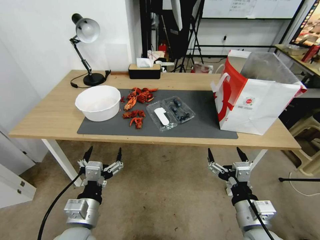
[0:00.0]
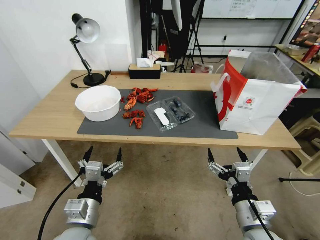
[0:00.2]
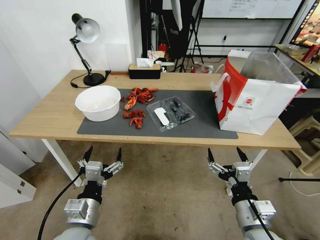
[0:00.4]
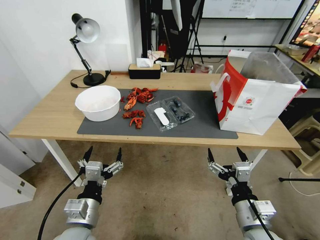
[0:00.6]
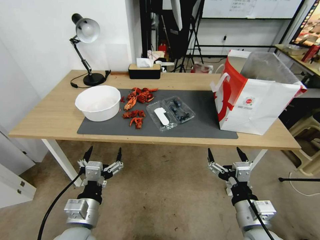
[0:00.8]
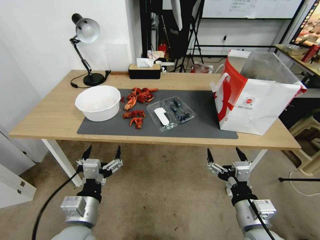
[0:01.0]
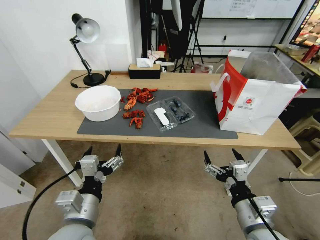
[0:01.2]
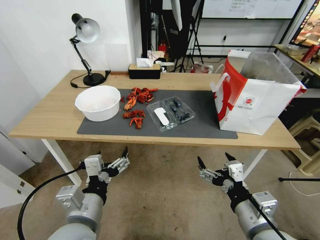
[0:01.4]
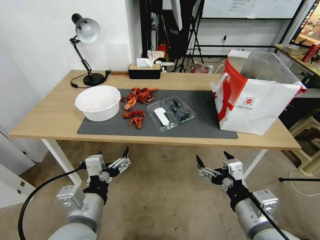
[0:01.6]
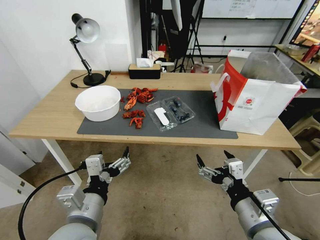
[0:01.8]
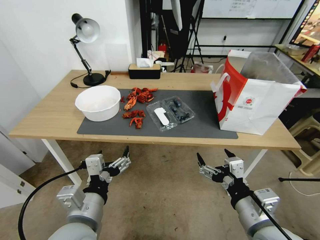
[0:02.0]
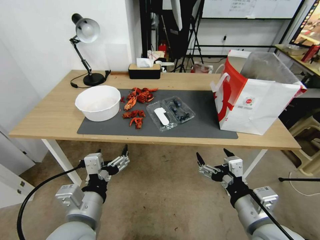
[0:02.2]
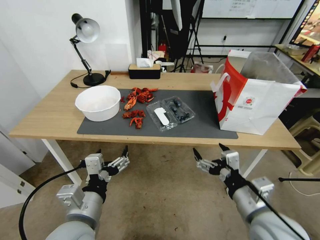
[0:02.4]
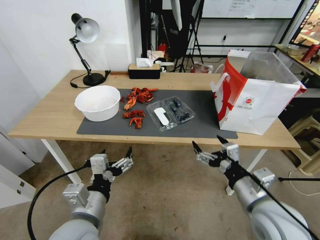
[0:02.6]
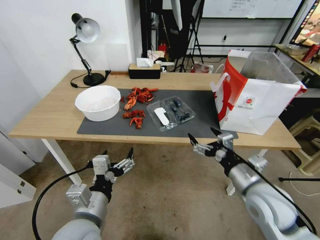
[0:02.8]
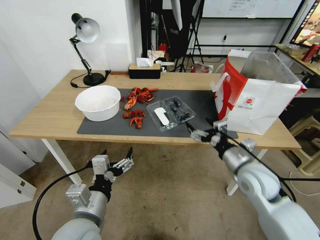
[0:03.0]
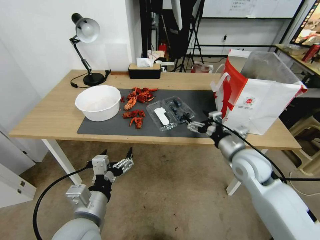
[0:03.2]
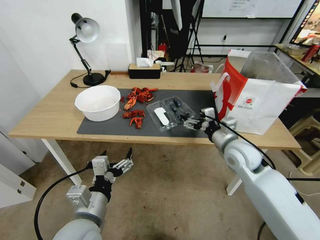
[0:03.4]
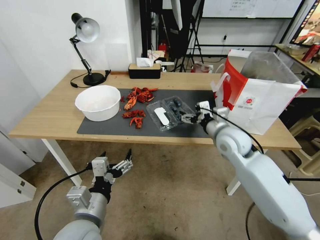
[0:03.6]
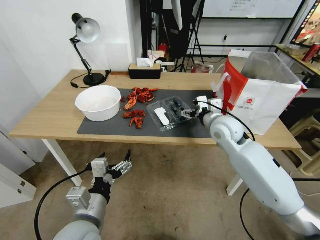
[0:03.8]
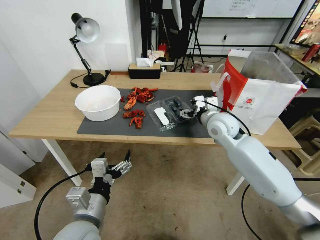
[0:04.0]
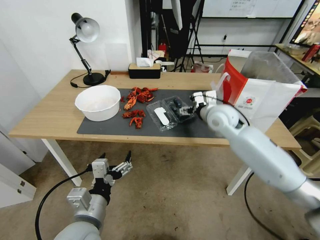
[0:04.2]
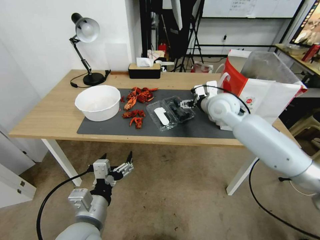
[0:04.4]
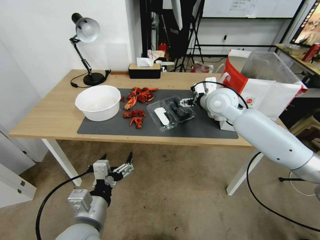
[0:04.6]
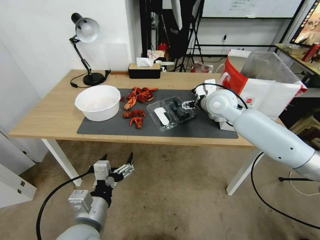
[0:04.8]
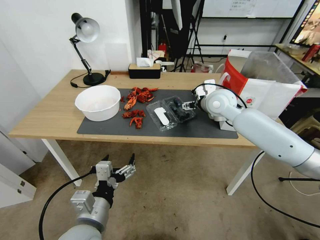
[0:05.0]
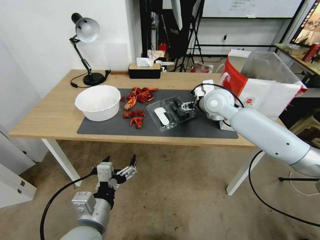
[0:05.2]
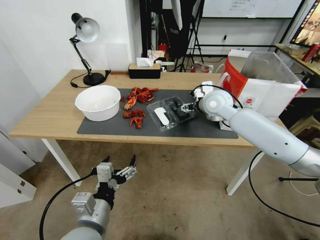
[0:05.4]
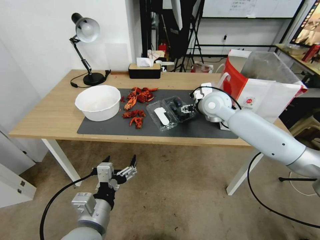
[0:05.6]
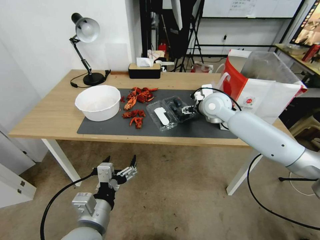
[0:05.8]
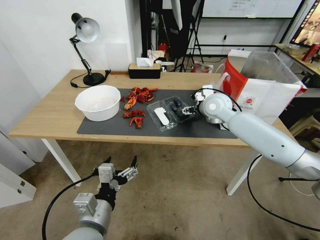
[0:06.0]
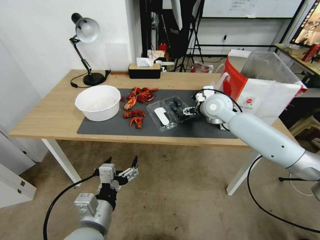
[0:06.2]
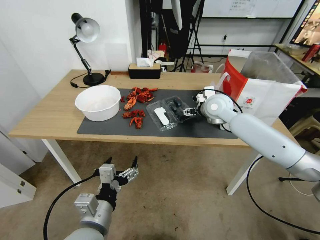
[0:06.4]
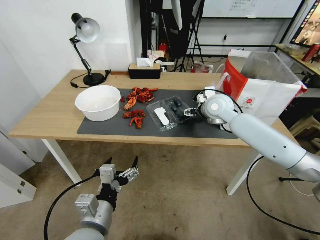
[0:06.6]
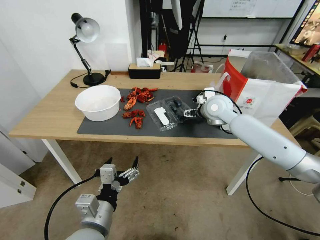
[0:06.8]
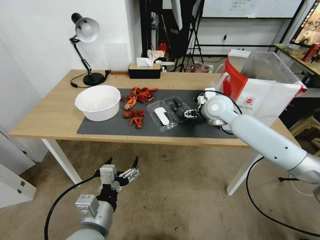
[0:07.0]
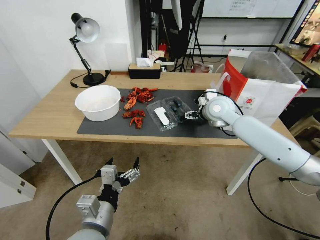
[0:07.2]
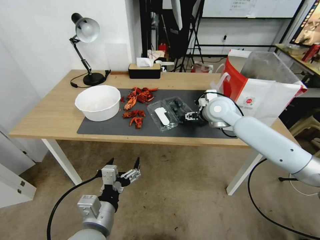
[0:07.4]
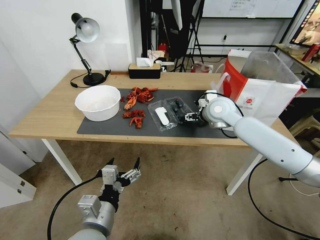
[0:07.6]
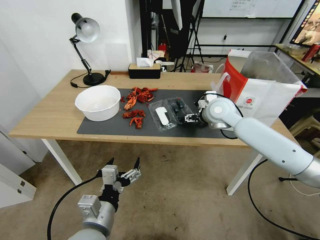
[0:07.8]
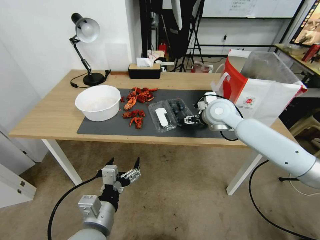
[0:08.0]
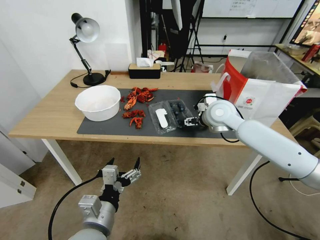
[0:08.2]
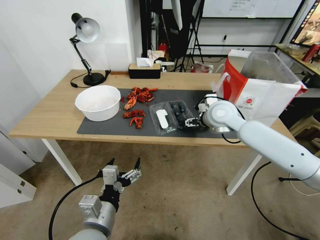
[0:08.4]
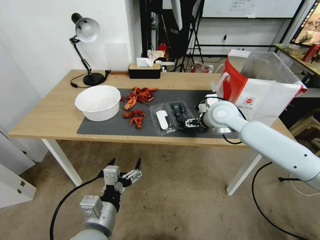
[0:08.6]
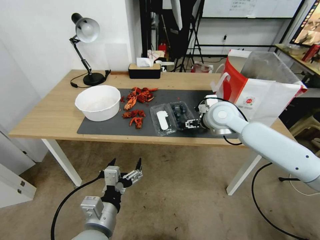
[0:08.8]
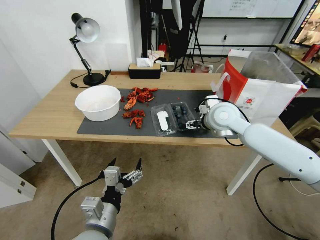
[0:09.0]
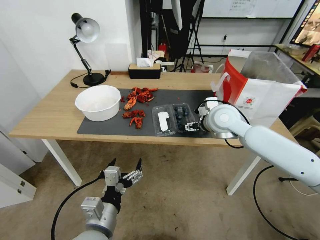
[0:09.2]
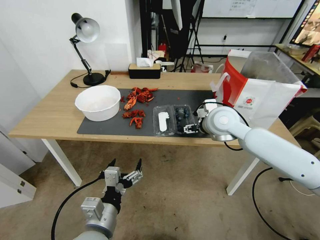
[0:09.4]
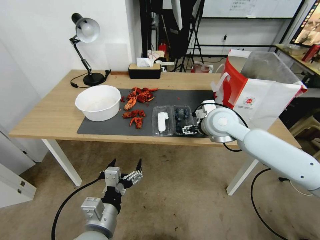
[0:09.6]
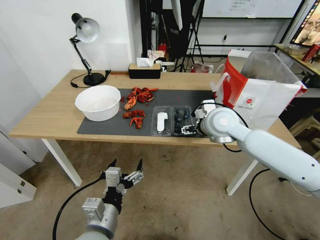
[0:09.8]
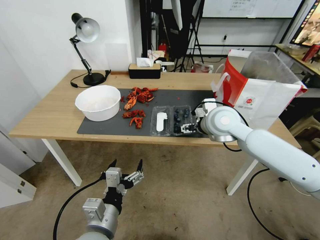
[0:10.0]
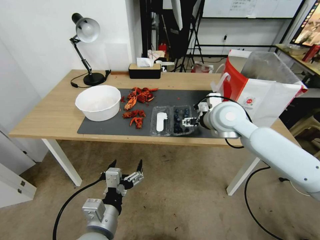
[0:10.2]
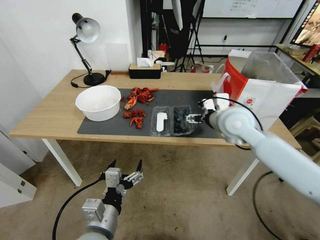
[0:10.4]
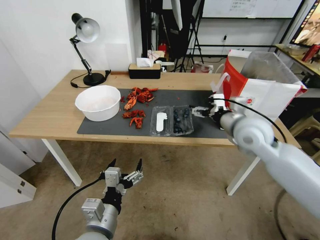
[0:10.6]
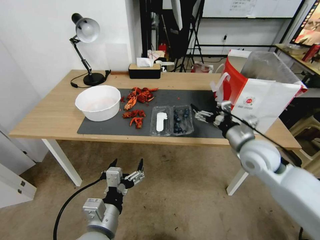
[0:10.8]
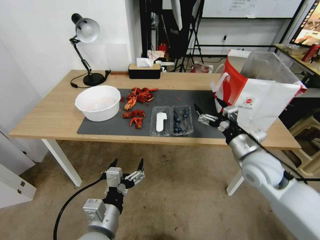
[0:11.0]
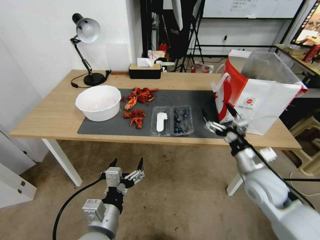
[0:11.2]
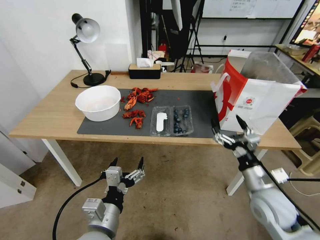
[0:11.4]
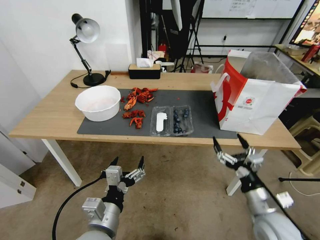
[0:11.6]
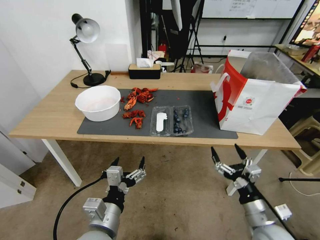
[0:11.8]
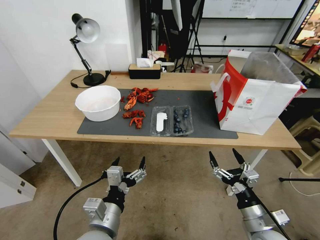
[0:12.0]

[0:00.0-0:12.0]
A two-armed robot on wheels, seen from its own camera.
Task of the whole recording: Close the takeout container lid, then place the container into the takeout bag.
0:01.6 to 0:03.0: The right gripper is displaced forward by some 15 cm.
0:03.0 to 0:04.4: The right gripper moves forward and upward, some 25 cm.
0:04.4 to 0:07.6: The grippers move only a little.
0:07.6 to 0:09.0: The right gripper moves roughly 5 cm.
0:09.0 to 0:10.4: The grippers make only small movements.
0:10.4 to 0:12.0: The right gripper goes approximately 35 cm backward and downward.

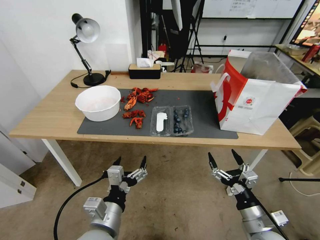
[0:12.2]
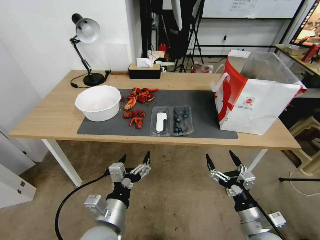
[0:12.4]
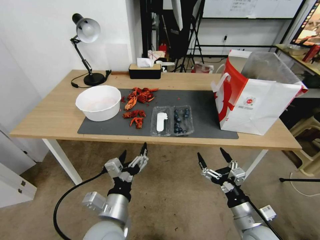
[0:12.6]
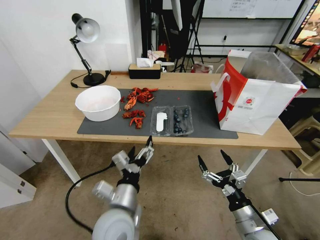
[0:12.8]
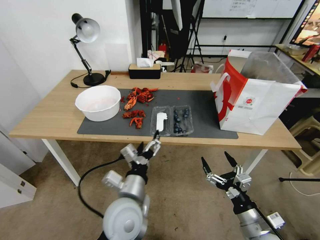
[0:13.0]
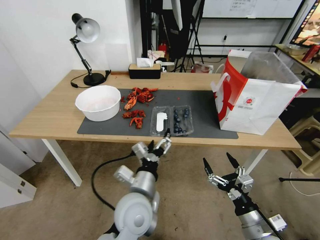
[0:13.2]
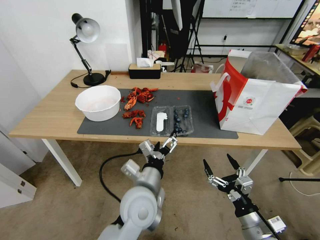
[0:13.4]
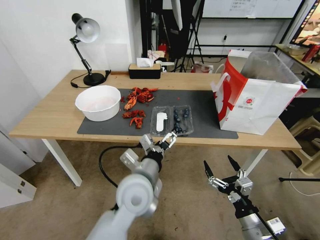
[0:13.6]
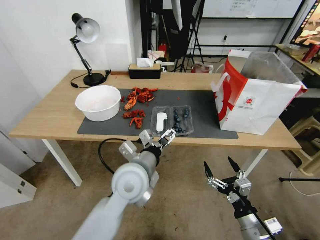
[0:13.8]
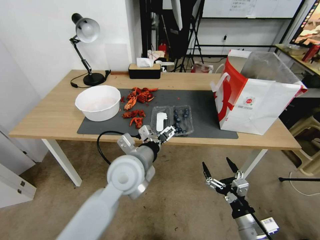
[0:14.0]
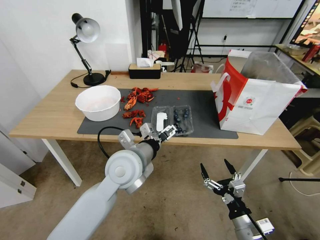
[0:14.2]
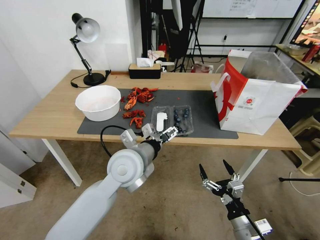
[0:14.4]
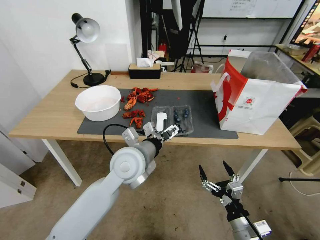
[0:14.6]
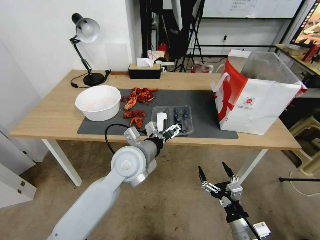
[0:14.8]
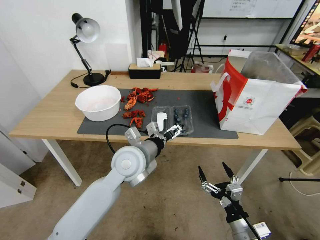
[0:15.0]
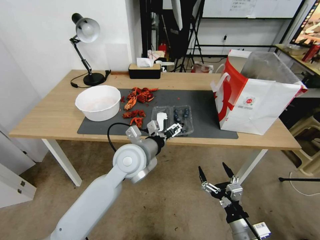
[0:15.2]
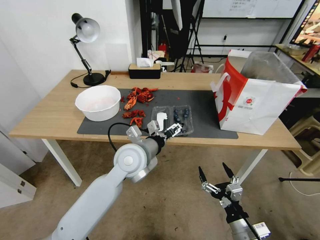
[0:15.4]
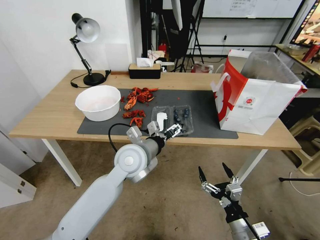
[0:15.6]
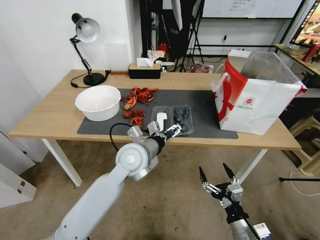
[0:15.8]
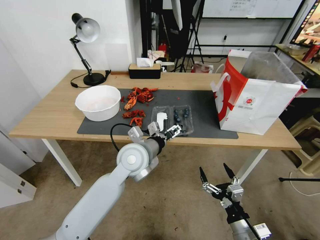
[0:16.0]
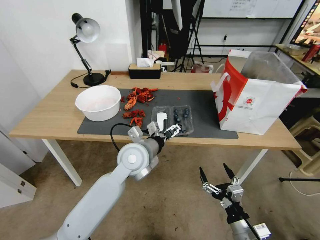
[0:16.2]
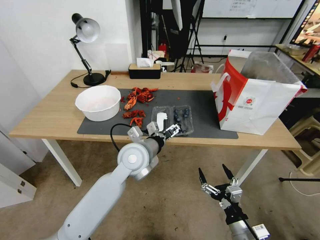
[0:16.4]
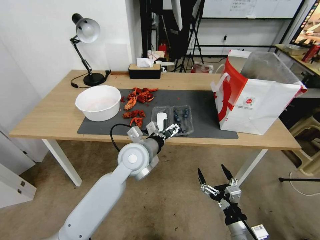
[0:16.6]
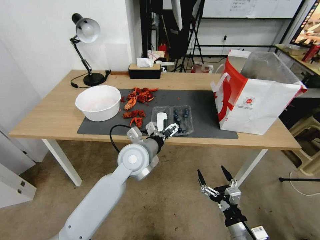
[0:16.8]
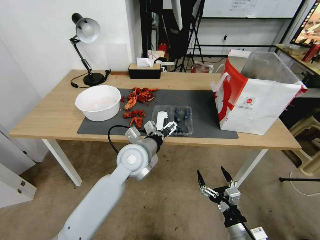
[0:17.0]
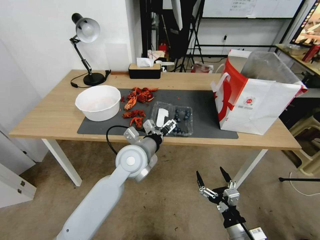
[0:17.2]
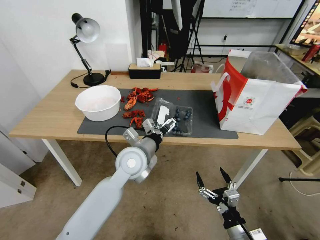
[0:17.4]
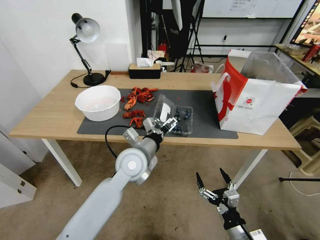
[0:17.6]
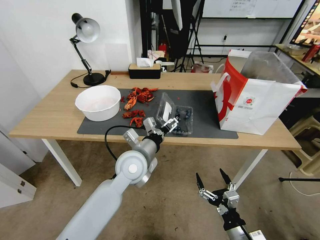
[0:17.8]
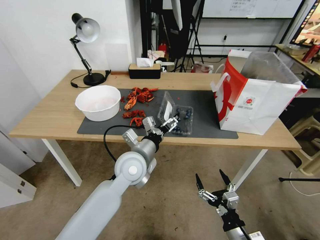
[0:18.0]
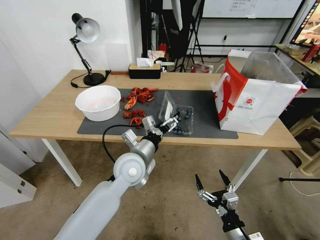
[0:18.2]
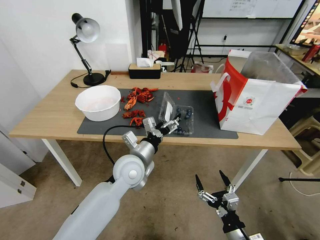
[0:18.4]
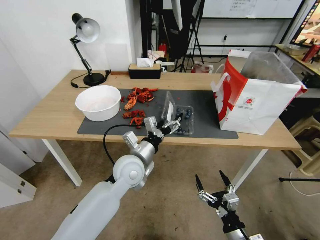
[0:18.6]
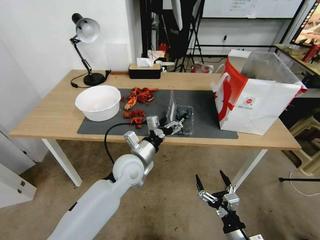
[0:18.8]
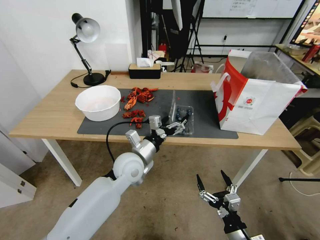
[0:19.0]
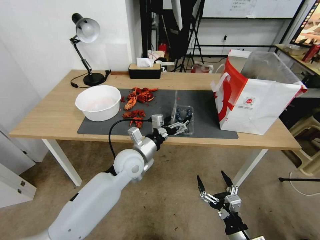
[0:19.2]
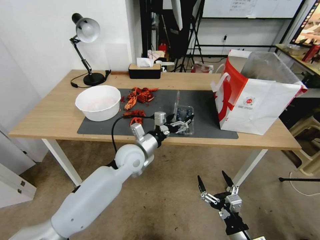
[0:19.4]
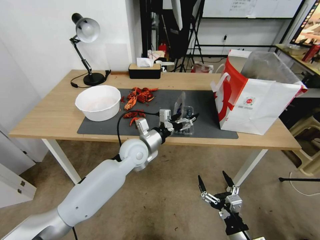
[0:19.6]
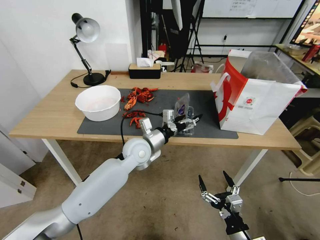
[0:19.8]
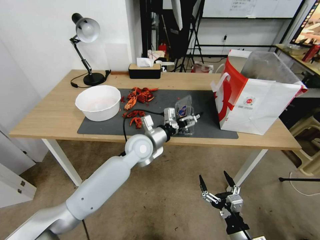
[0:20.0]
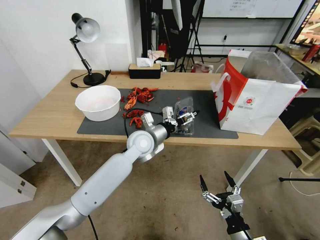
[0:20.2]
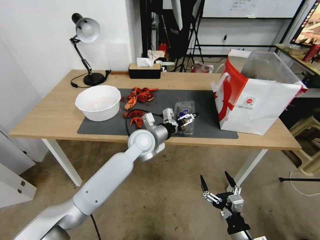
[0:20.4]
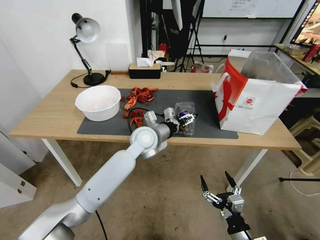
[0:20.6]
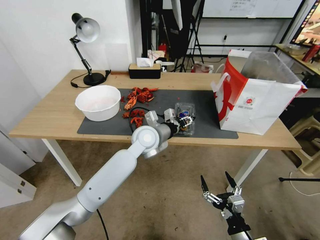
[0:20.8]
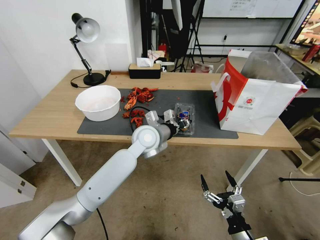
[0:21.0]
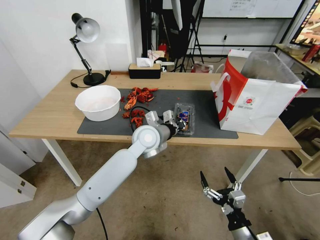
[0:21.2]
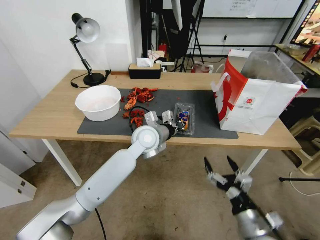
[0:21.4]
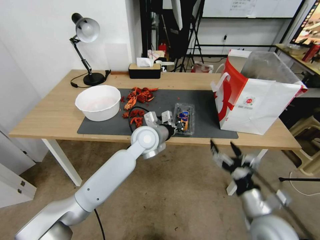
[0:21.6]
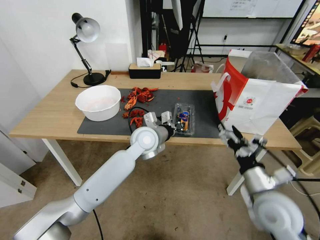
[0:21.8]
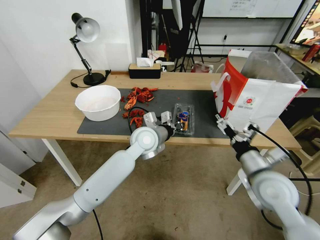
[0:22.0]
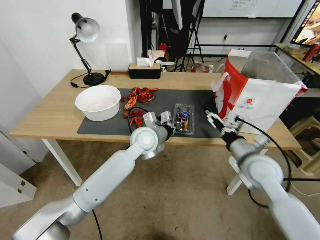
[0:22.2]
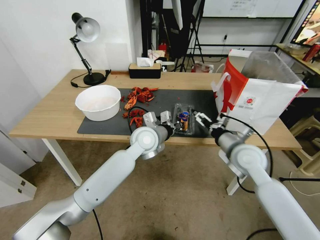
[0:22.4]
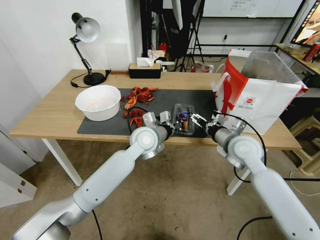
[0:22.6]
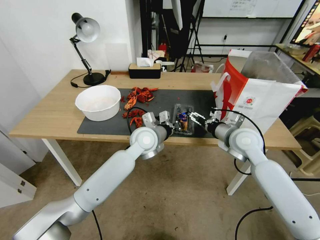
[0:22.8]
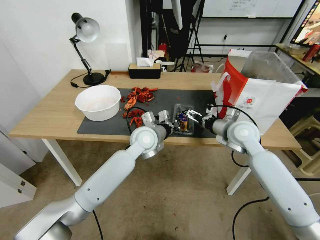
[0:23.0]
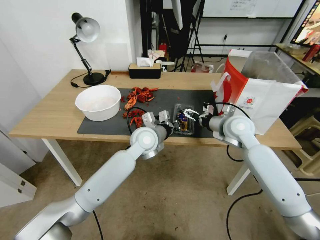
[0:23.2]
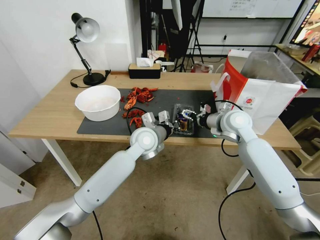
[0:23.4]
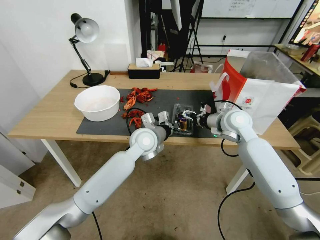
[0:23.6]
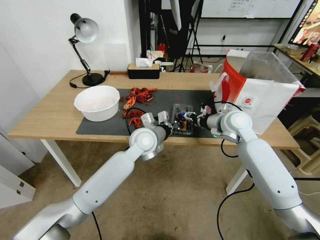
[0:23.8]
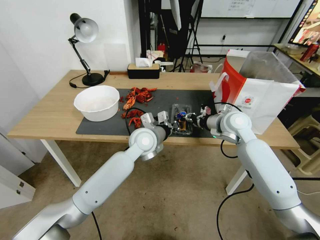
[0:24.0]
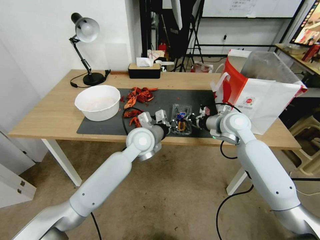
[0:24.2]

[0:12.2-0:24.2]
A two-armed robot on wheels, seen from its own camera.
Task of the whole recording: Close the takeout container lid, then place the container into the takeout bag.
0:12.2 to 0:13.8: The left gripper shifts approximately 15 cm forward, to the right and upward.
0:13.8 to 0:15.2: The left gripper travels forward by some 5 cm.
0:15.2 to 0:16.6: There are only small adjustments of the grippers.
0:18.2 to 0:19.8: The left gripper is displaced forward by some 5 cm.
0:19.8 to 0:21.2: The left gripper shifts by approximately 5 cm, and closes its fingers.
0:21.2 to 0:22.6: The right gripper moves forward and upward, some 35 cm.
0:22.6 to 0:24.2: The right gripper travels forward by approximately 10 cm, and closes up.
